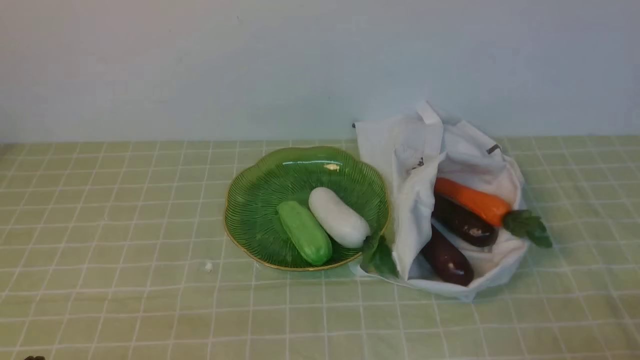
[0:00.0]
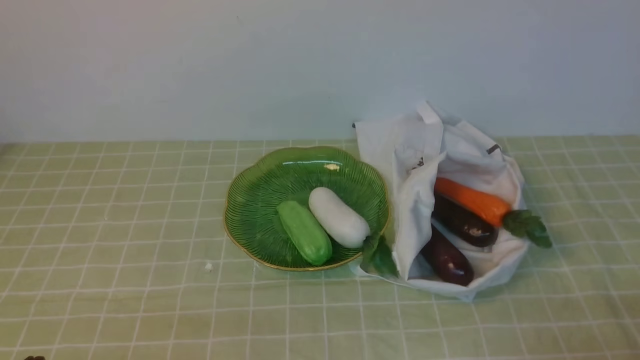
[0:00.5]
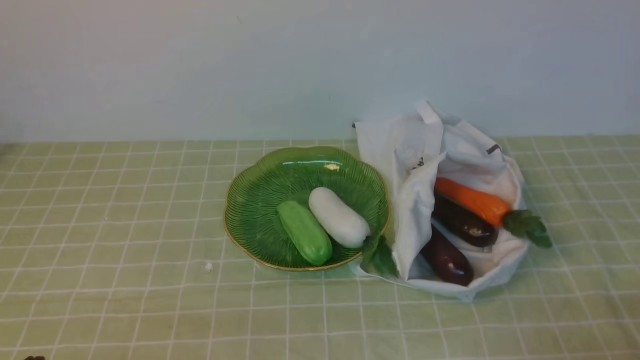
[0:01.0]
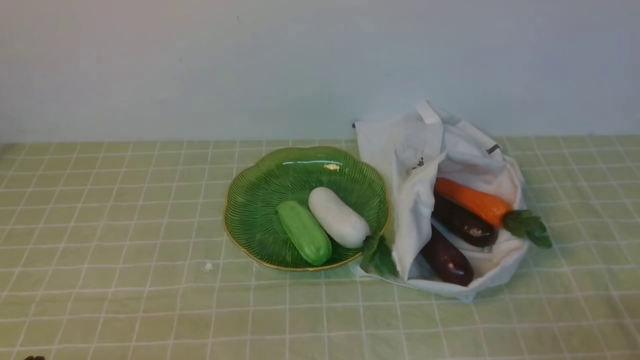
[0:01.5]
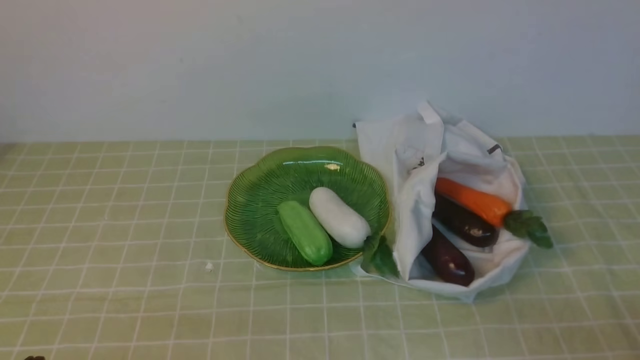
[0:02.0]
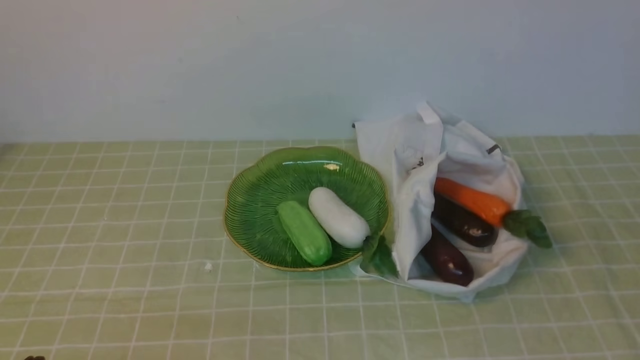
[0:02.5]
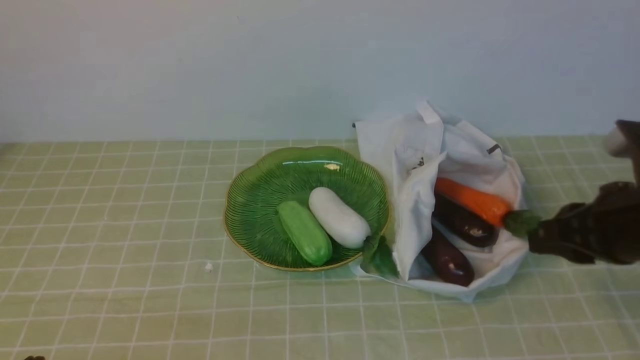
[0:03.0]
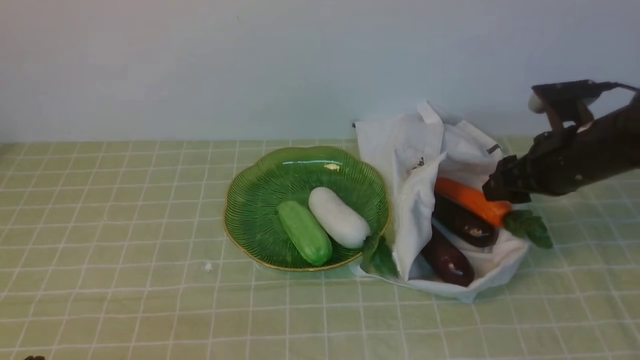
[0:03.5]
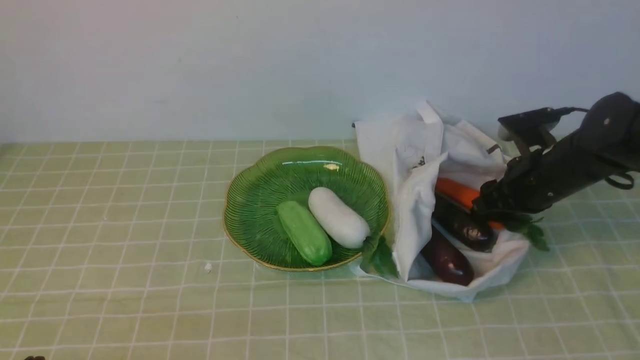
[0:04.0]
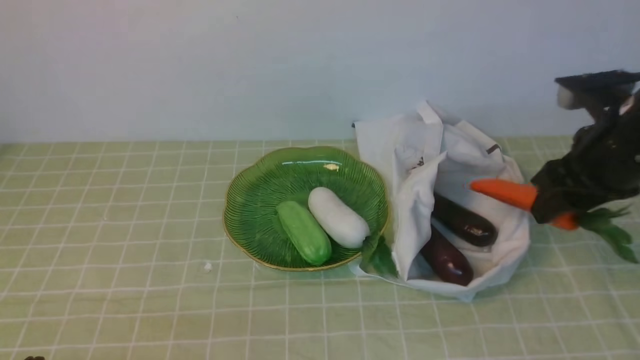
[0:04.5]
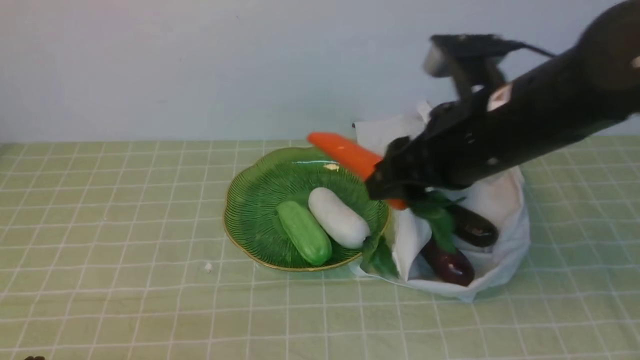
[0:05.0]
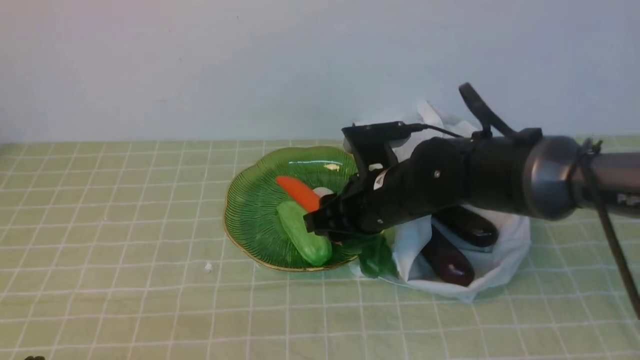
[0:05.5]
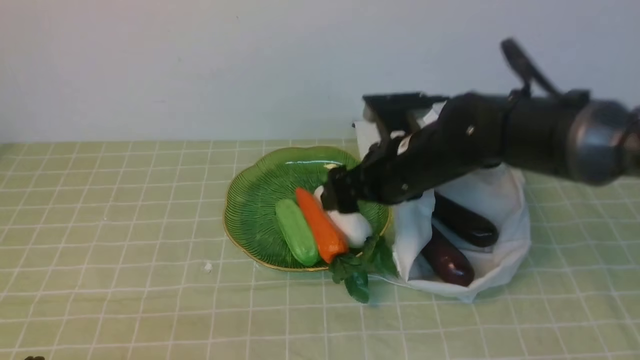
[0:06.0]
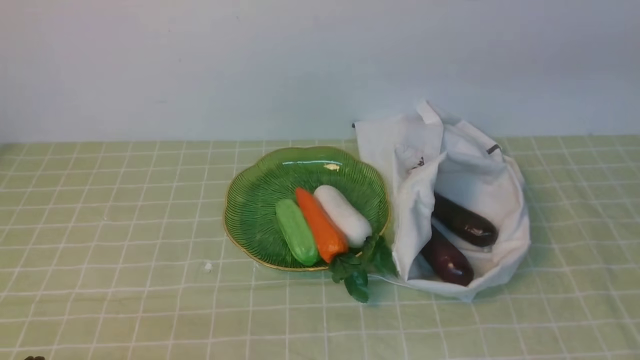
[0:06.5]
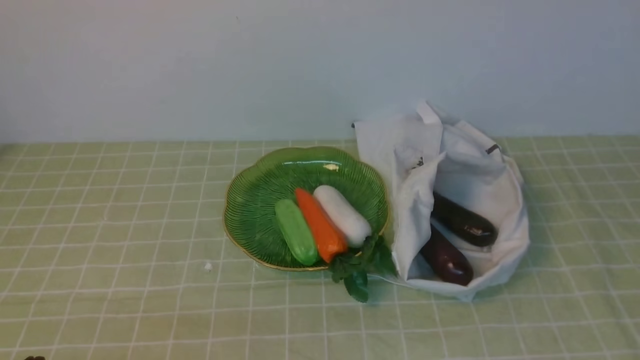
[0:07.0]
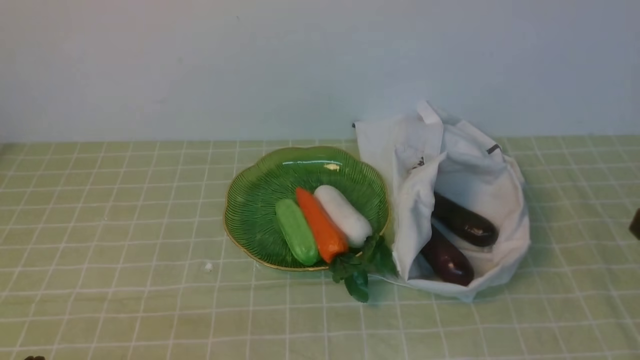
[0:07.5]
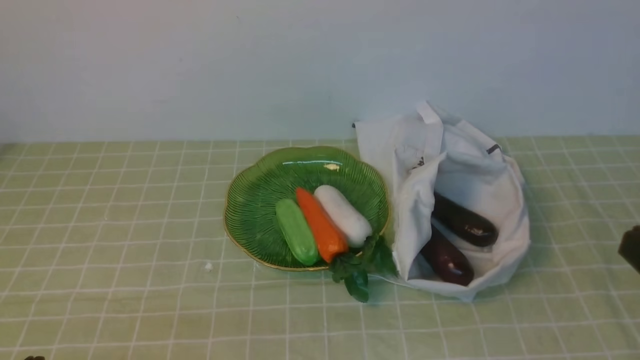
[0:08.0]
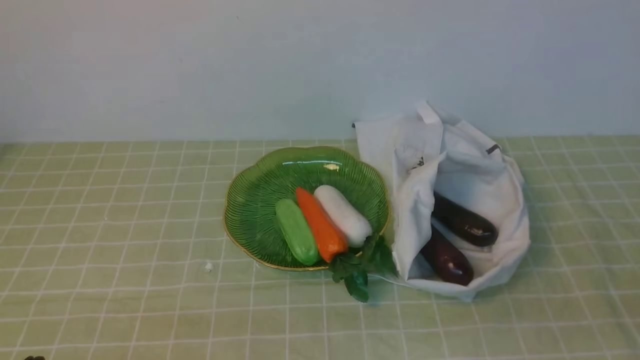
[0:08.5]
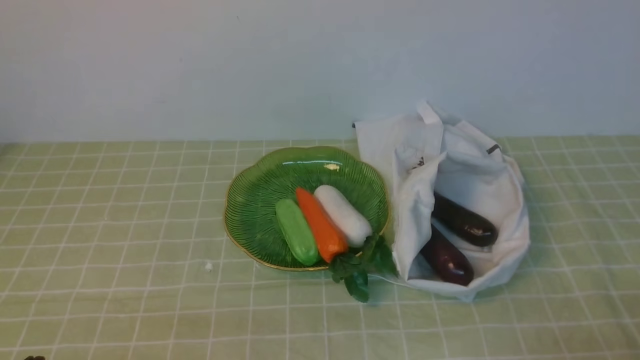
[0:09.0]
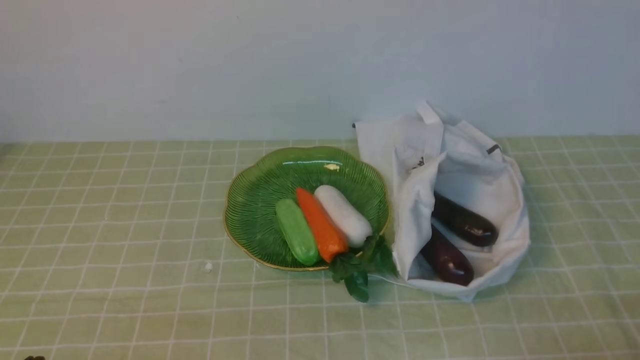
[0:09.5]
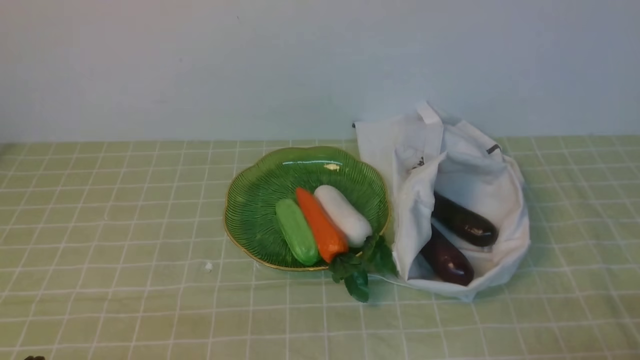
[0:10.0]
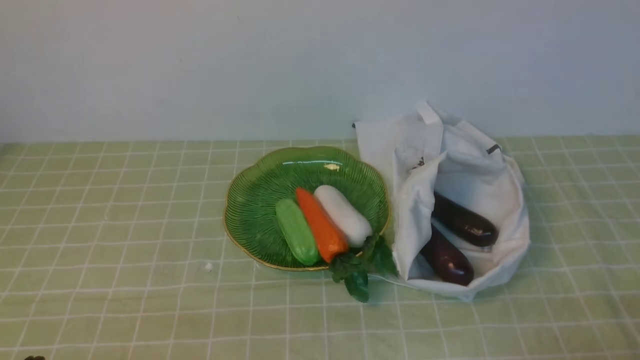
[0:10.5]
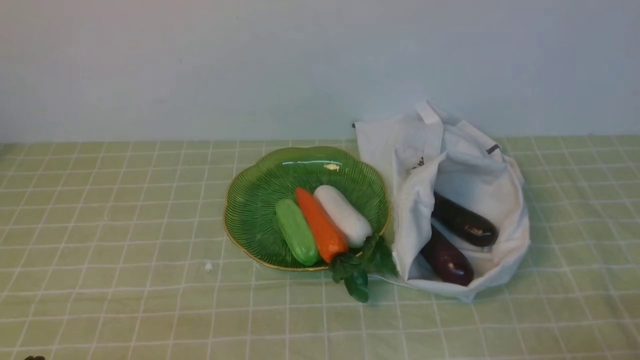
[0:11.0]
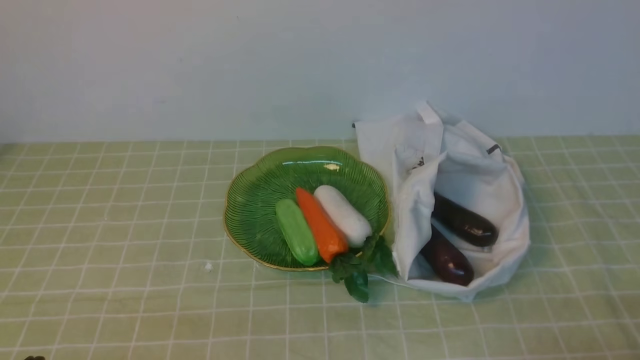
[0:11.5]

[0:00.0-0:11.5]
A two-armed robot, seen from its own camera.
Task of the whole recording: take vegetables from bag on green coffee tablecloth place on plate.
Step, 0:00.0 to 0:04.0: Grasp the carrot with right gripper.
Step, 0:04.5 to 0:05.5: Place the carrot on the plate with right gripper.
0:02.0 to 0:04.0: The right gripper heads forward, covering roughly 35 cm, and opens its fingers.
0:04.0 to 0:06.0: The right gripper goes roughly 20 cm to the left and upward.
0:06.0 to 0:07.5: The right gripper goes approximately 30 cm backward and to the right, and closes up.
0:09.5 to 0:11.5: Neither gripper changes place.
